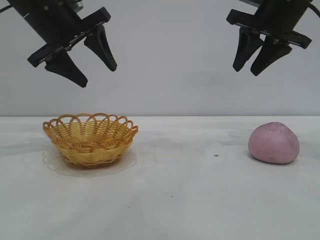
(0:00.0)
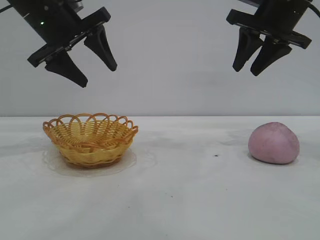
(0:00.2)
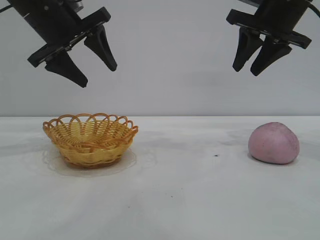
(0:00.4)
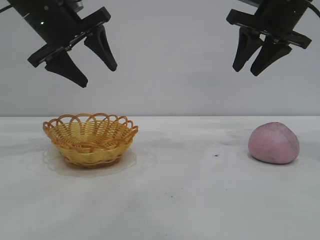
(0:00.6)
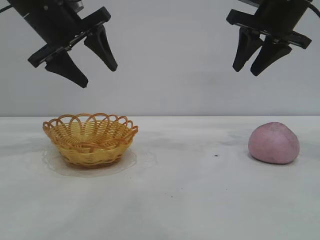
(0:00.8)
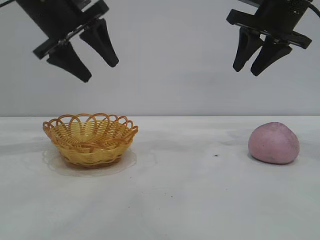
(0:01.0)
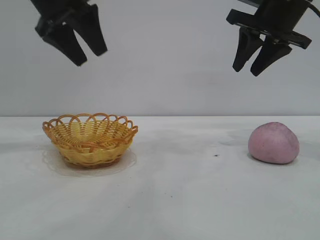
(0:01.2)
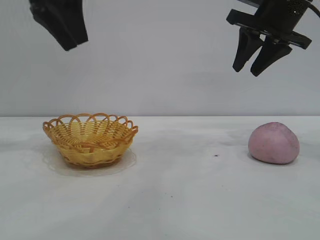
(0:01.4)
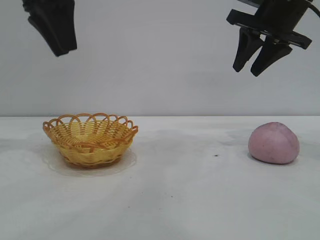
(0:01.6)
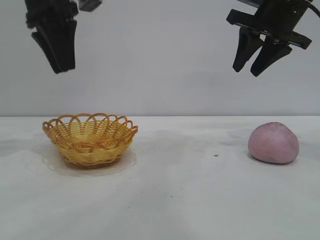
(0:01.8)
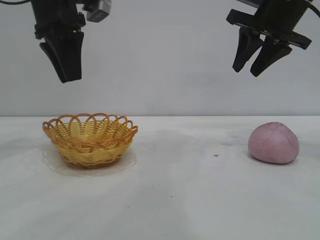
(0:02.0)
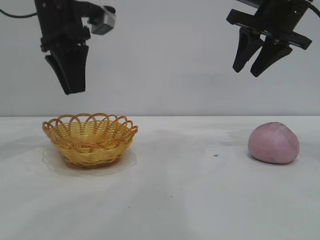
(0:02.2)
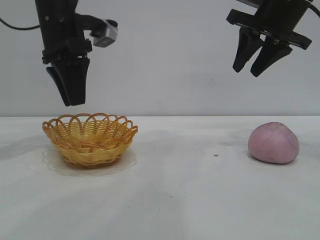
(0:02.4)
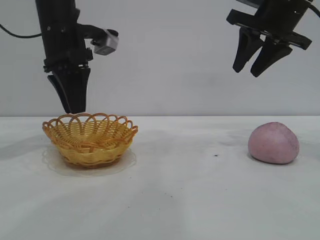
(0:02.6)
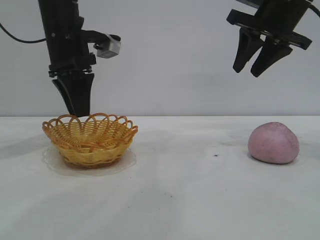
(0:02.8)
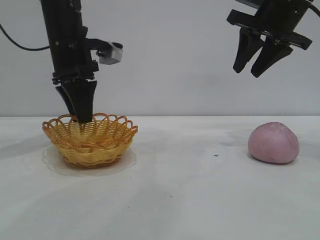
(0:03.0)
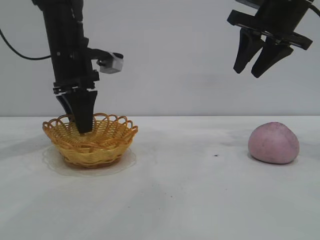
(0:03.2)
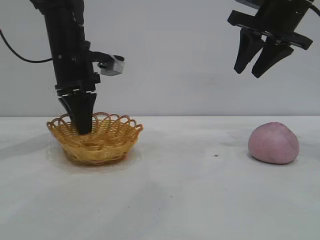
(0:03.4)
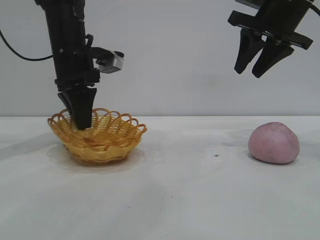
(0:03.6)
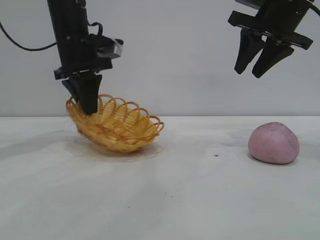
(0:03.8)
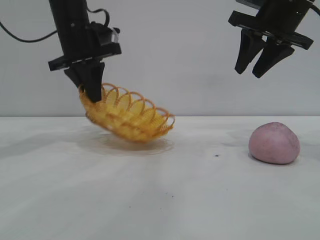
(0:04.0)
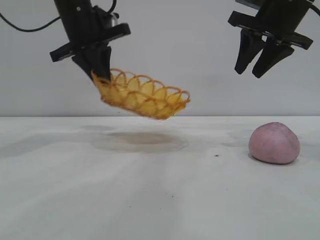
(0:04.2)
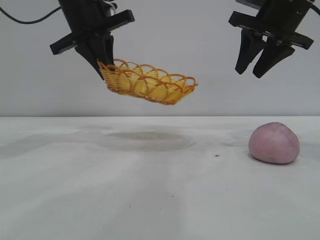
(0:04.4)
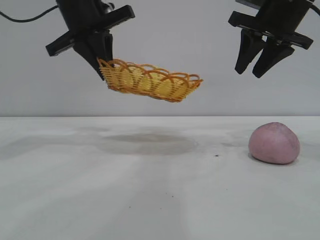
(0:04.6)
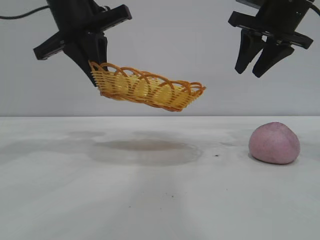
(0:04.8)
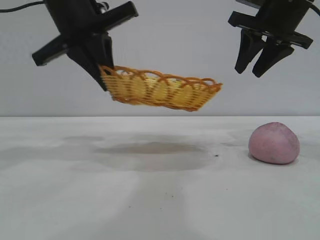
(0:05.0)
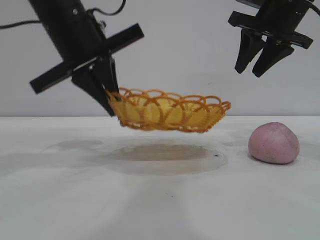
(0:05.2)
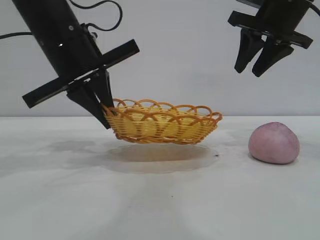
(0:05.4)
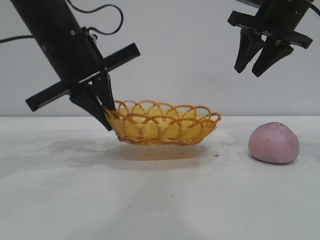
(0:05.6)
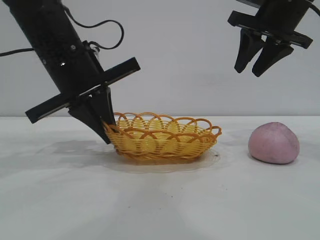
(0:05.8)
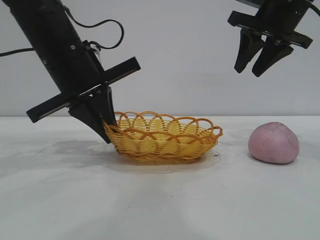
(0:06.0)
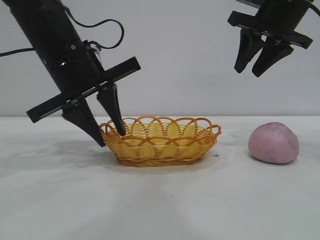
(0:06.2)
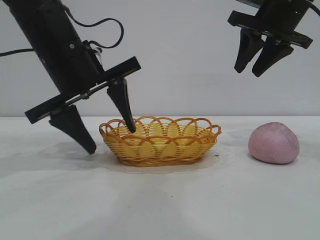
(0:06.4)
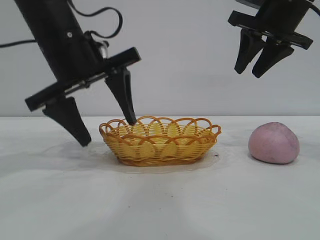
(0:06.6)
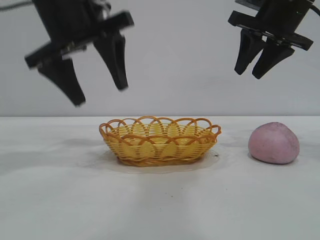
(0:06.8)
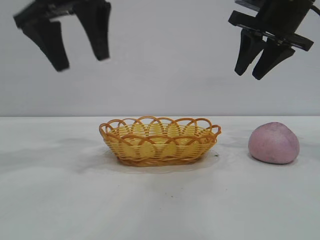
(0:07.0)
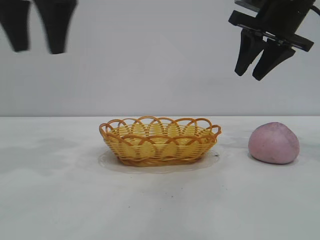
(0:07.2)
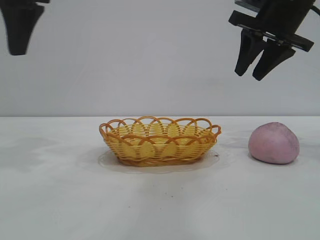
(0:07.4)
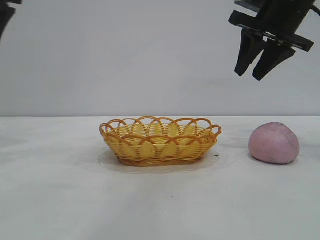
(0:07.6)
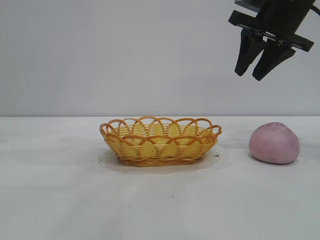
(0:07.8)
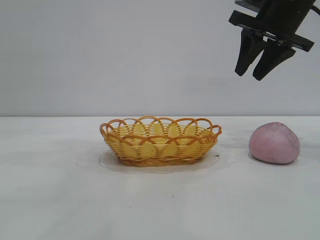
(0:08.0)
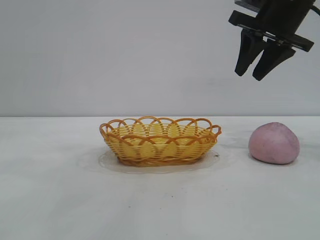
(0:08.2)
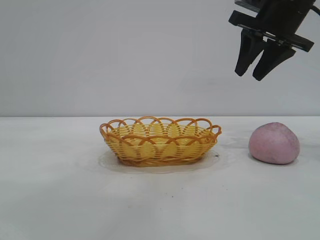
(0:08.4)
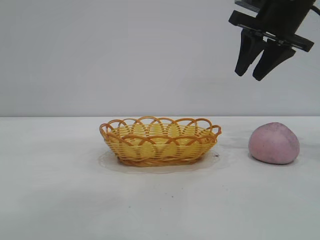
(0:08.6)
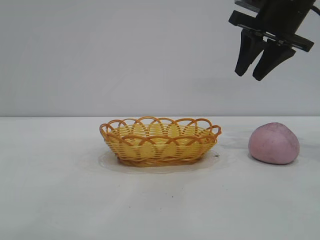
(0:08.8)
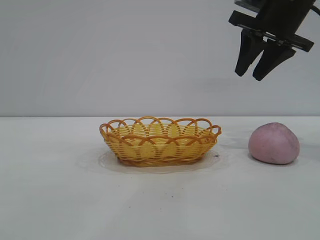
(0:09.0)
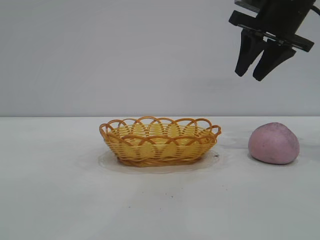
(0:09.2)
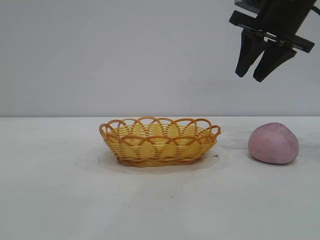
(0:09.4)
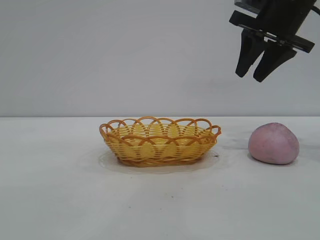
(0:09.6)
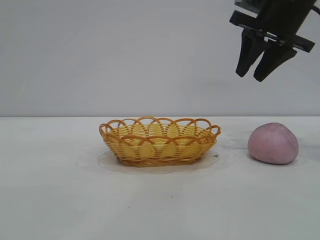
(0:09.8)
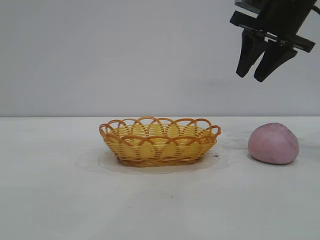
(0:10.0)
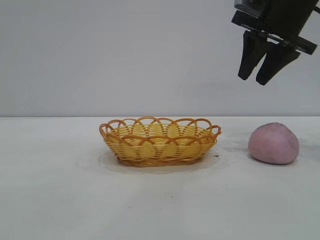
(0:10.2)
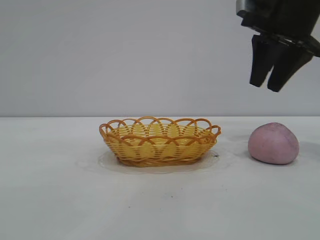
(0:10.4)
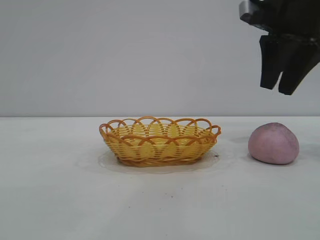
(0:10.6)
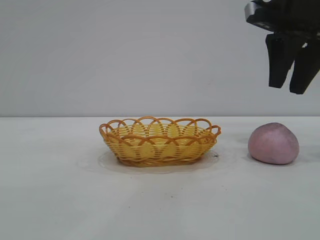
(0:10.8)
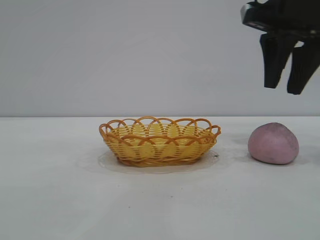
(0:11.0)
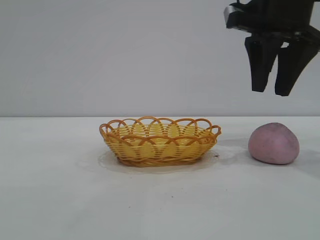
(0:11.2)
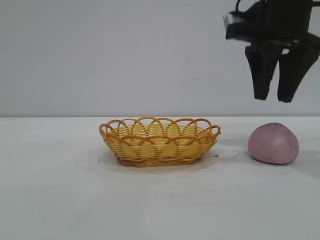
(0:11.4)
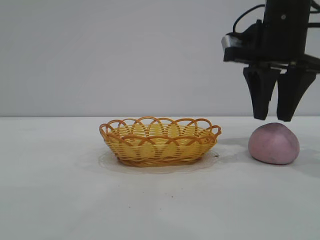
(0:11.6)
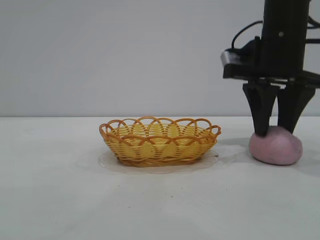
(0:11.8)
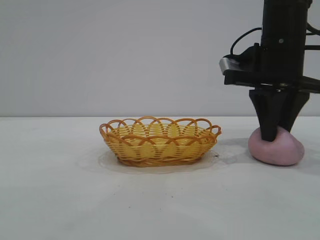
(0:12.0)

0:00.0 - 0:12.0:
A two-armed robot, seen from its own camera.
Task of the whole recording: pick up the peach and put it into the basket.
Step, 0:00.0 - 0:07.0: Move the basket to the center of view.

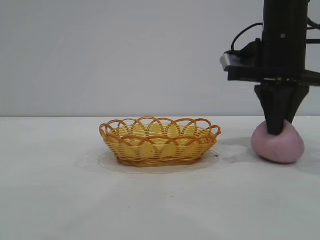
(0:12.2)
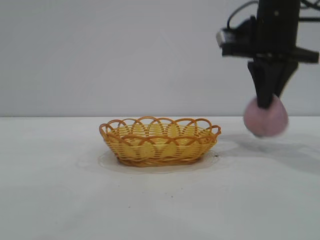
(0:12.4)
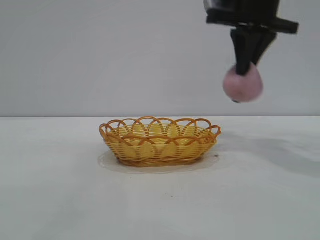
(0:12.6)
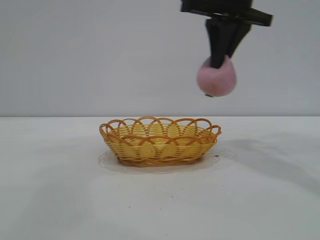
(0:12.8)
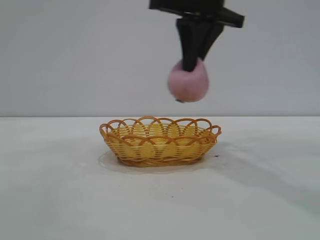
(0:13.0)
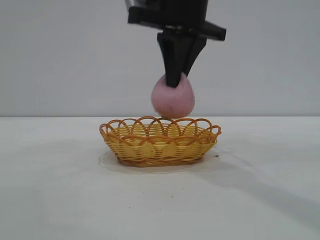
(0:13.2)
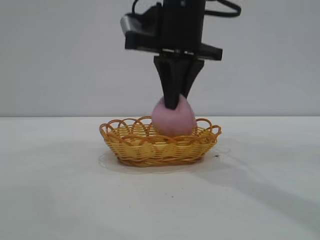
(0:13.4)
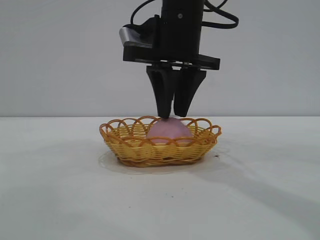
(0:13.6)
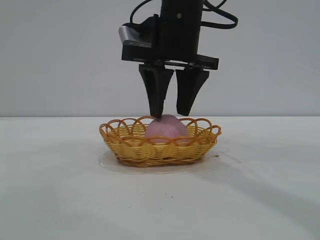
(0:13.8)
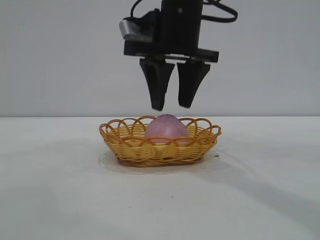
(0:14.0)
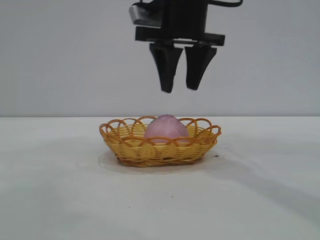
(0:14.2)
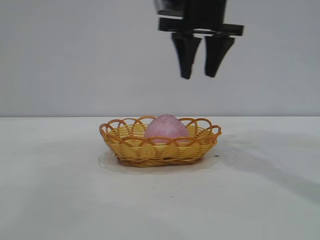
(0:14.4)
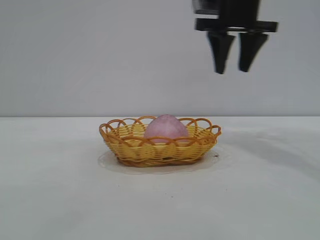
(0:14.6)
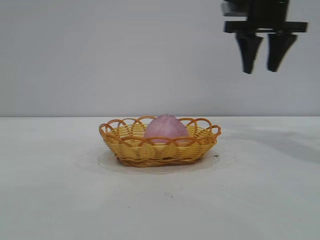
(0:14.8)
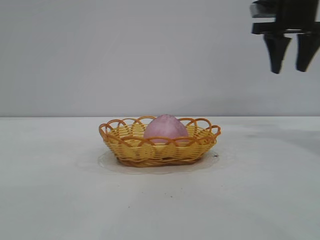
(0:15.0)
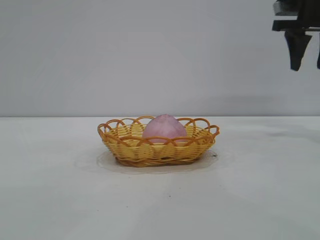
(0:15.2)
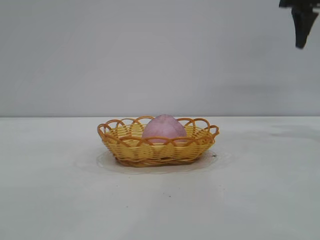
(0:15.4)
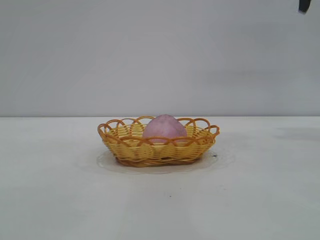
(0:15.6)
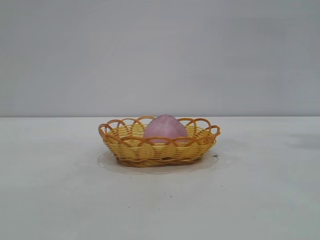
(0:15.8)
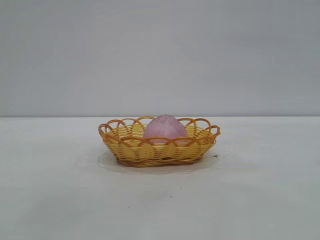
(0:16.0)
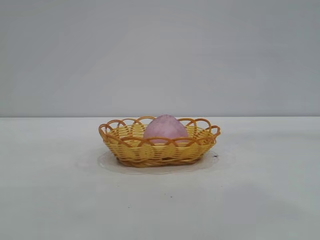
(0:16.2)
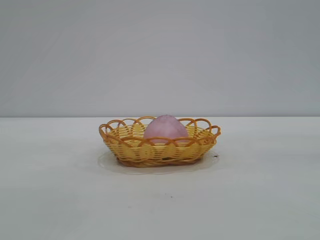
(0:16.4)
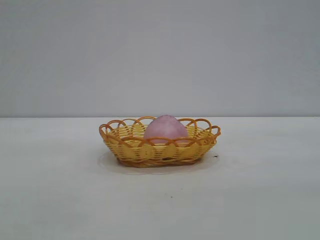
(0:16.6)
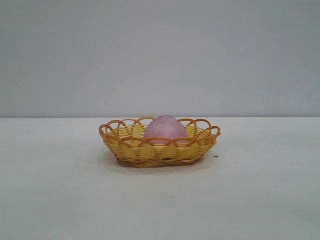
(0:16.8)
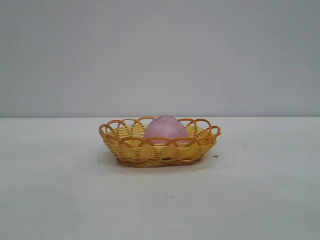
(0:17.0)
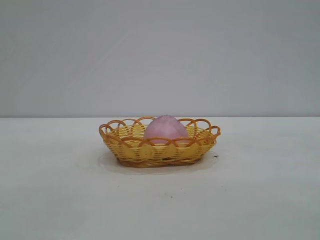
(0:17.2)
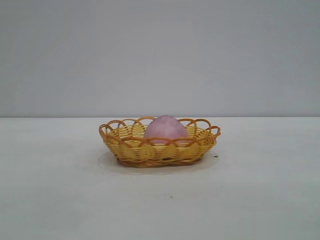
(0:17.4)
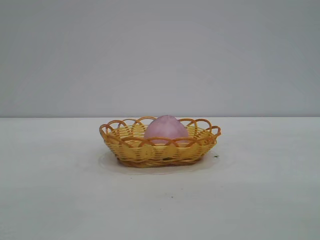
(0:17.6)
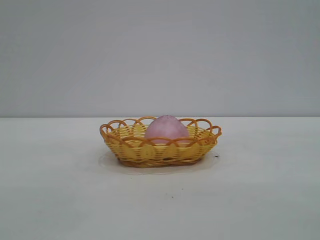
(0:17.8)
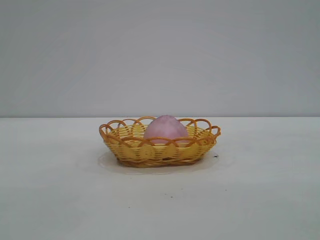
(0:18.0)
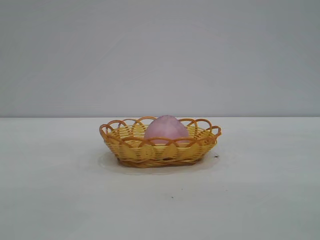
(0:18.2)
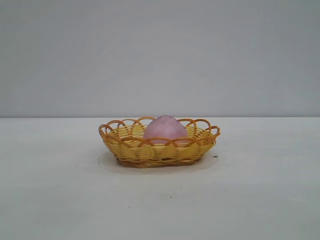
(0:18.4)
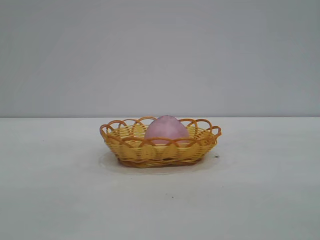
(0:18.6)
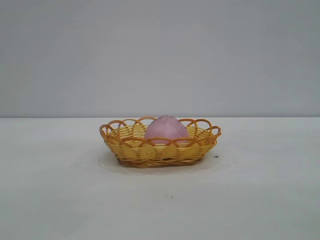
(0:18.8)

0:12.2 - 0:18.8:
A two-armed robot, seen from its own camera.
Task of the whole recording: pick up the peach and put it into the basket.
Step, 0:12.8 - 0:14.4: place the peach into the basket.

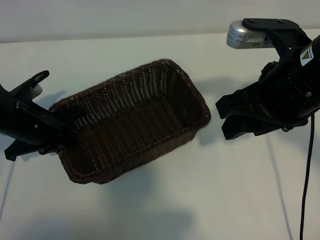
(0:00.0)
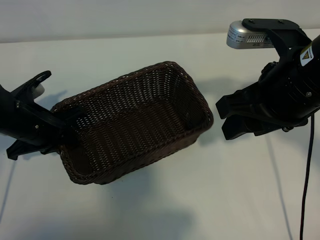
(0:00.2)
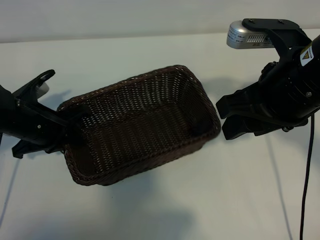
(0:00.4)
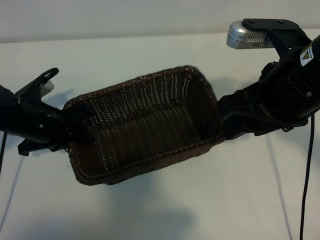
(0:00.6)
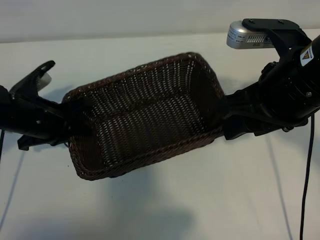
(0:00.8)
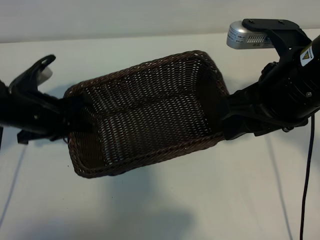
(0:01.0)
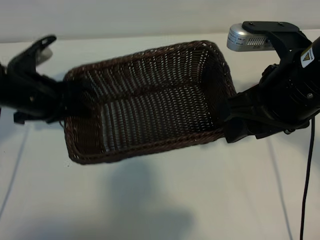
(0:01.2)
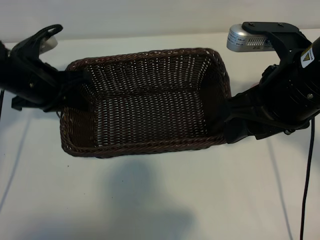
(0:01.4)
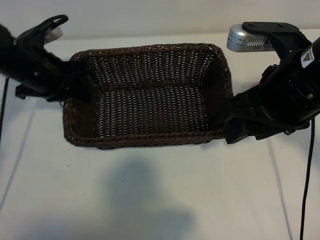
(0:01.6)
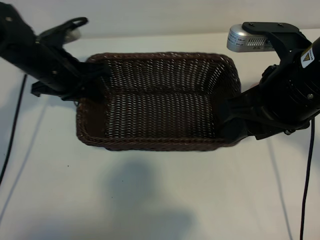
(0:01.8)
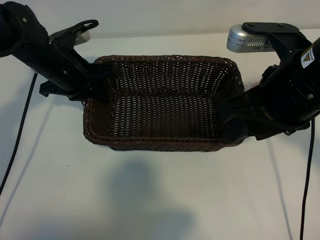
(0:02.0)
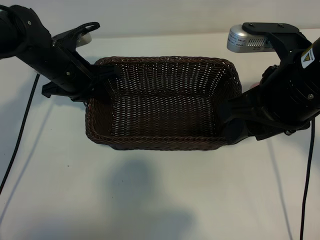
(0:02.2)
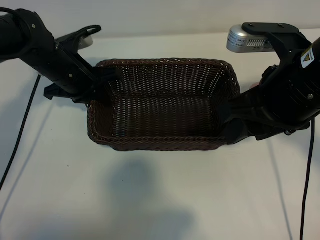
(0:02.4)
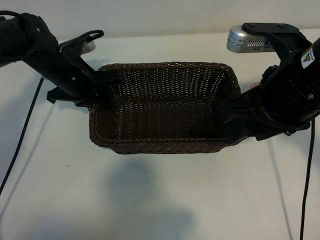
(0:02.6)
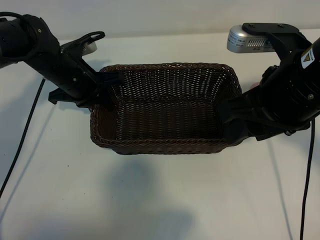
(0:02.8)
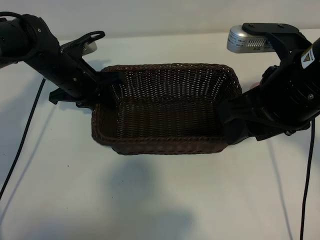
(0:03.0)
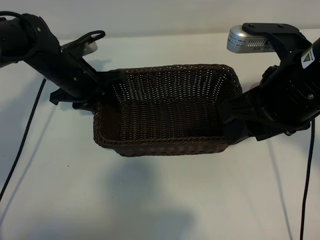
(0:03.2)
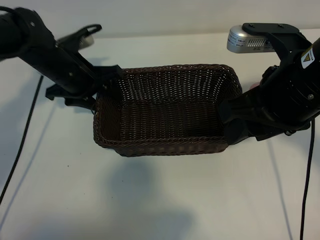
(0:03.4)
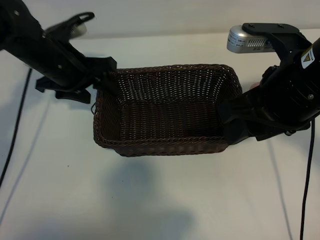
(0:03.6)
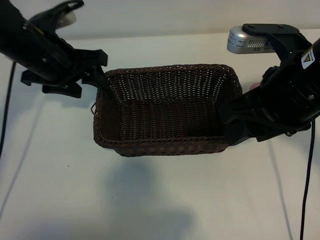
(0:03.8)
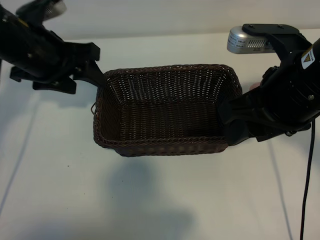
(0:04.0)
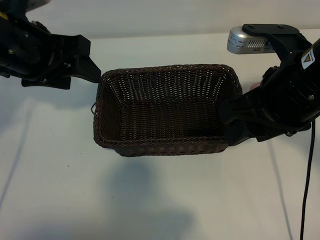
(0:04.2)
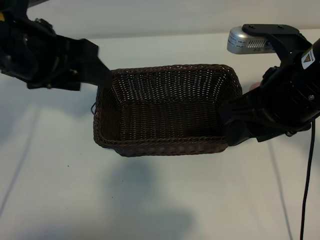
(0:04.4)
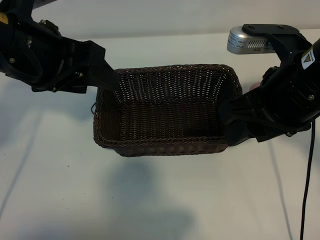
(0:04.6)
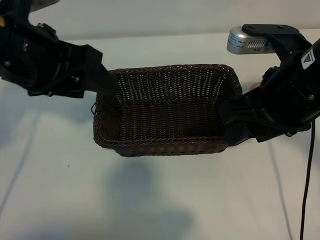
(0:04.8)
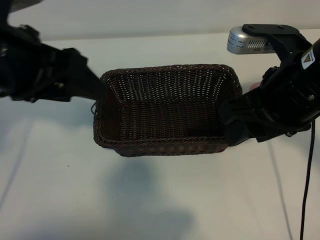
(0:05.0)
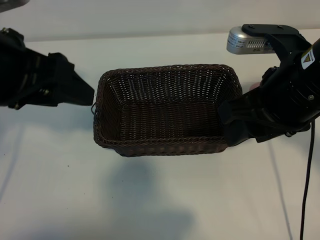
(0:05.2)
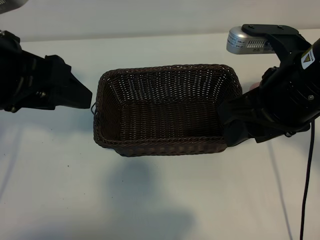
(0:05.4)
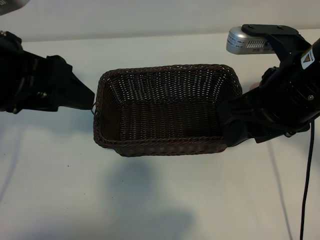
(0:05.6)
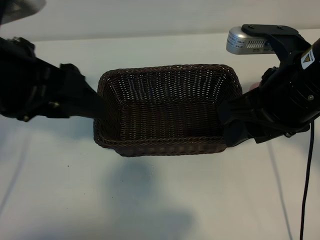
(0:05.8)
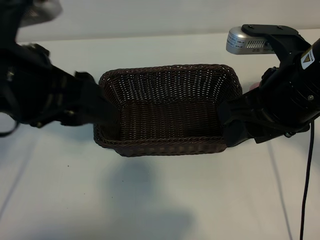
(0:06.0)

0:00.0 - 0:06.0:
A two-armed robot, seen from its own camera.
Task of the whole recording: pick up the peach and put it into the basket.
Step, 0:00.0 - 0:03.6: Place the basket in the center of view with left gripper.
